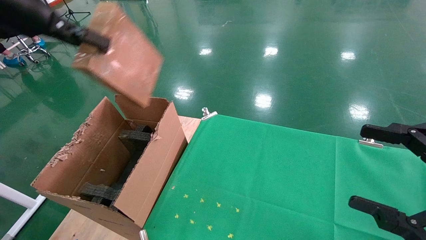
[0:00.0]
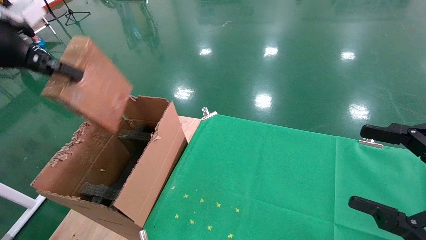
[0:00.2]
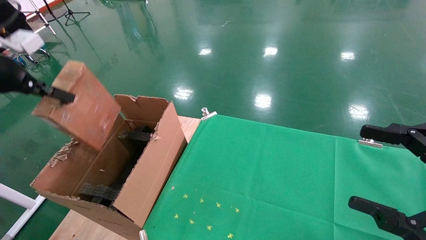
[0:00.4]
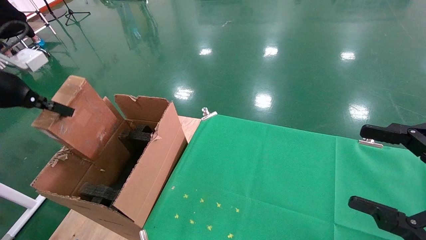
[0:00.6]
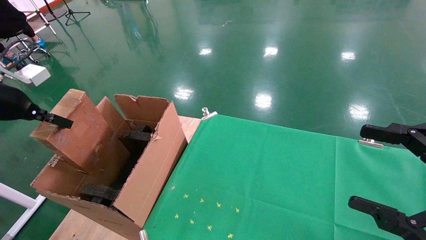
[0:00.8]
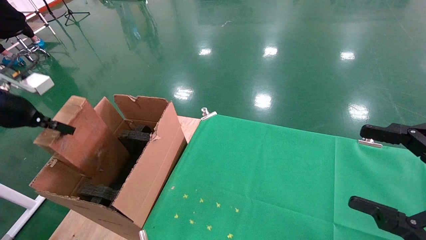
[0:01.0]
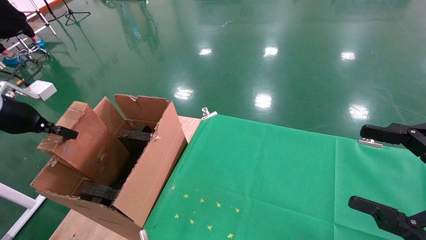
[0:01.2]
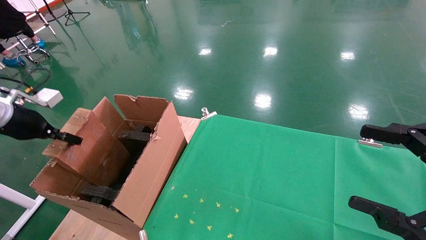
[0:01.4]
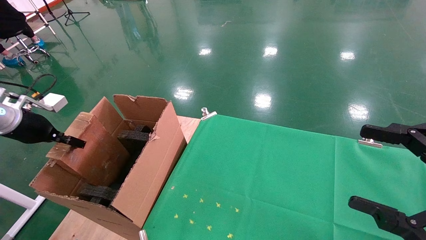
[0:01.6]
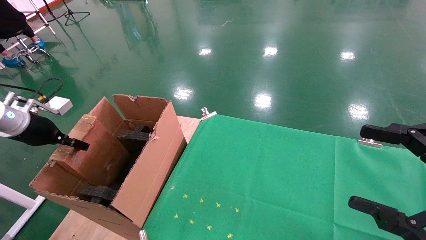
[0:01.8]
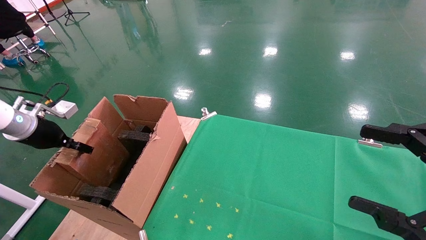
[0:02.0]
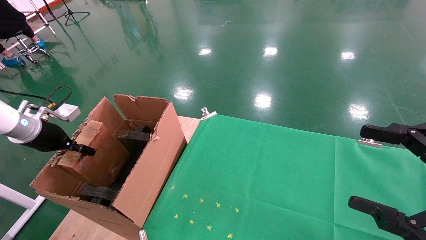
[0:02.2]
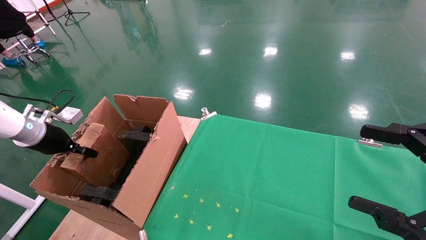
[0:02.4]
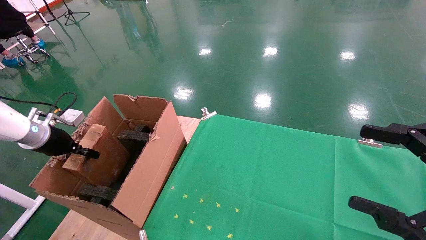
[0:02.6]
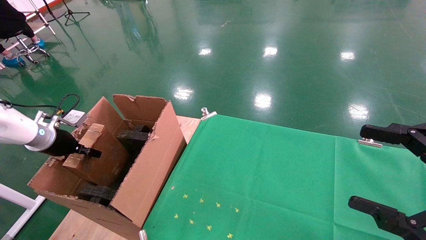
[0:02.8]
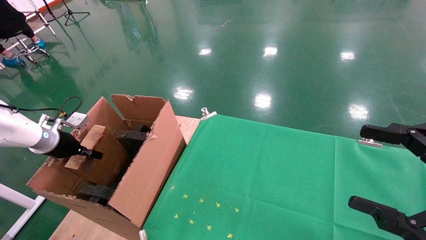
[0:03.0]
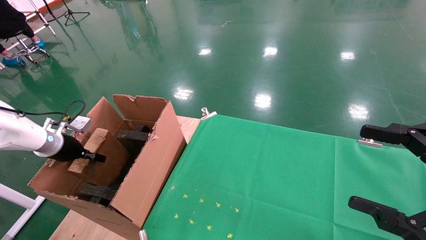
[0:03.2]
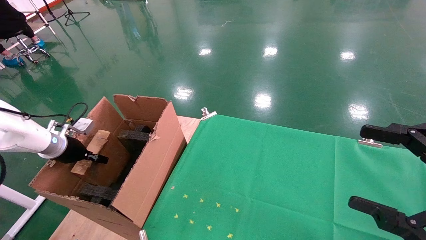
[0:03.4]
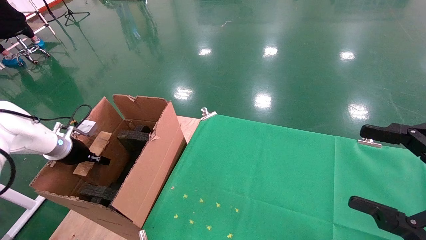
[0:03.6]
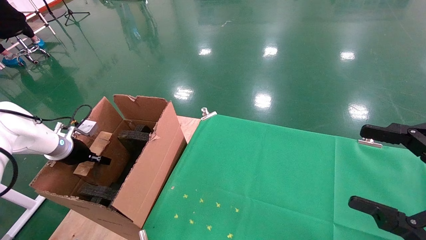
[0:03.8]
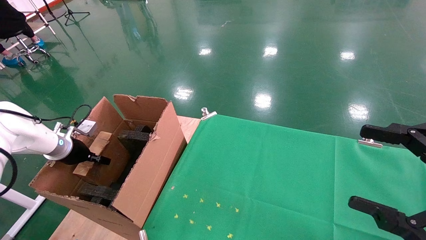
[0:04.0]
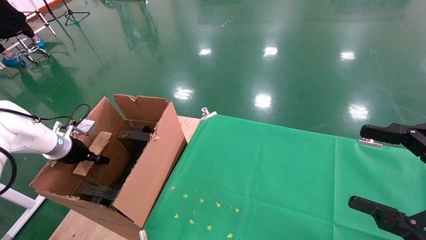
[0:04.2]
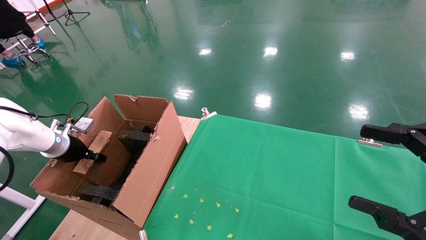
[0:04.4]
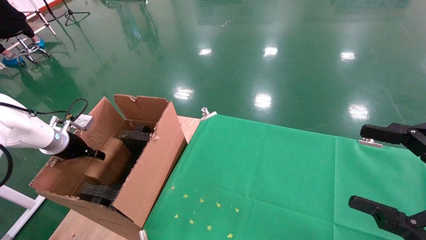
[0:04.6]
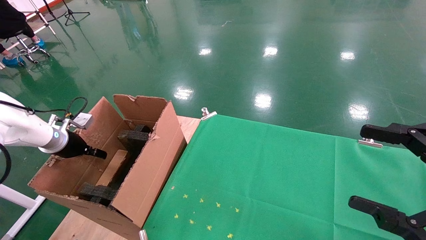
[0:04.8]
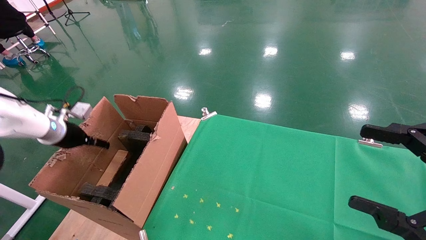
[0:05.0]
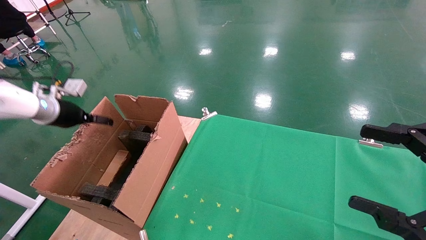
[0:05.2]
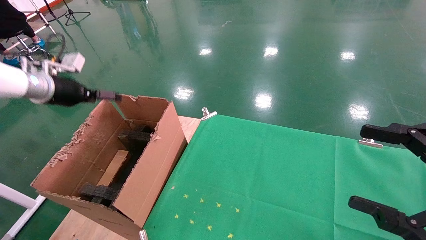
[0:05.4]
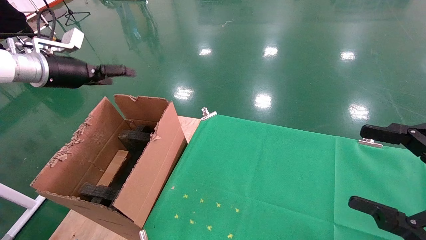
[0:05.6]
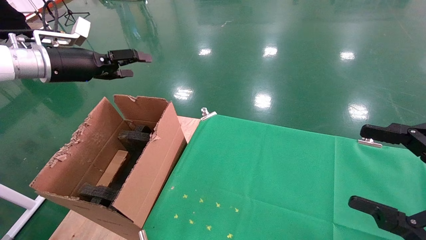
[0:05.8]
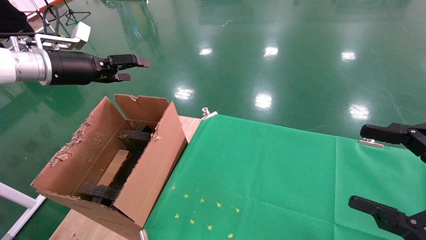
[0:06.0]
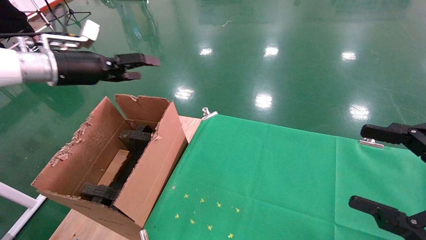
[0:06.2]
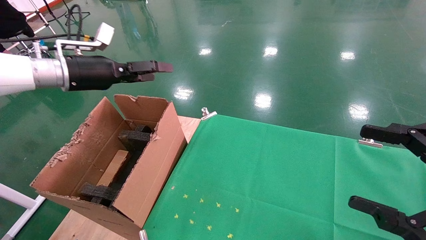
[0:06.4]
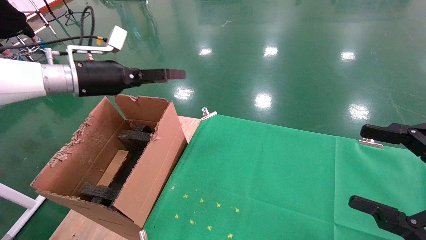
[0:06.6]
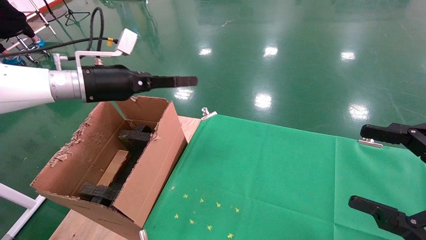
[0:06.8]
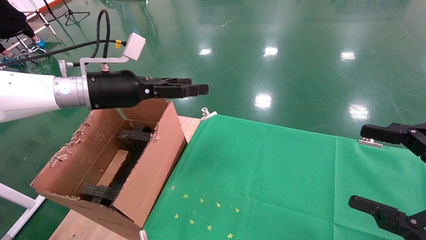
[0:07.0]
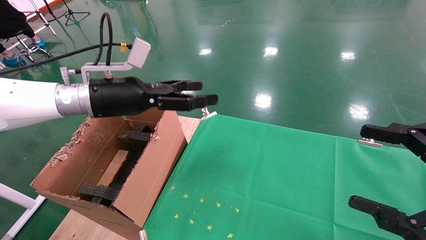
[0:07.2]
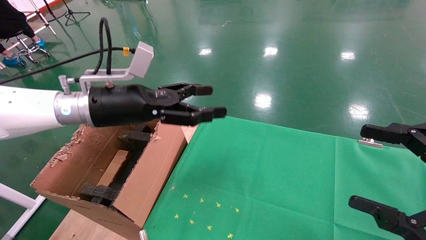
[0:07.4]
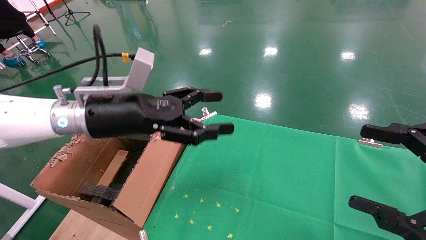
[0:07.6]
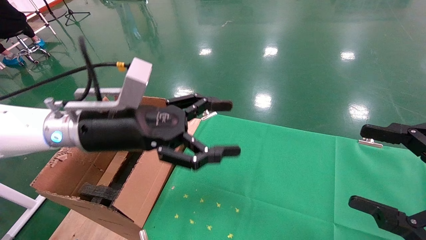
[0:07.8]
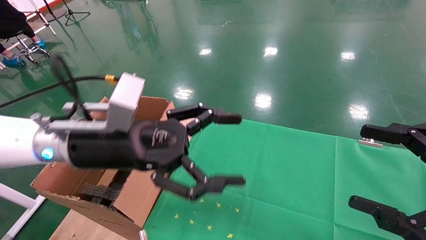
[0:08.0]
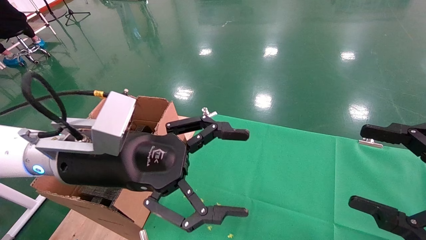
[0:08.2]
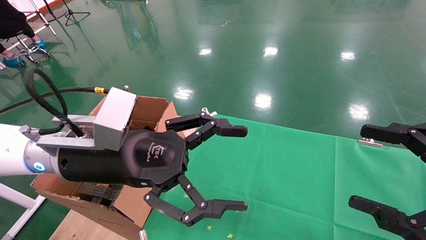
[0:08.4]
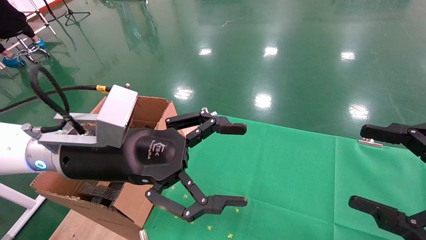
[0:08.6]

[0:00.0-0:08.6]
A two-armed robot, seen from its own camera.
Task of the whole recording: using a robotic arm to pick up a cardboard box and palace it the carton.
Step, 0:00.0 to 0:05.4: Place the mouse and the power cord paper box into the container.
0:00.0 to 0:01.4: The left gripper travels downward and to the left by roughly 25 cm.
0:01.4 to 0:02.8: The left gripper shifts roughly 10 cm downward and forward.
0:02.8 to 0:04.4: There are only small adjustments of the grippers.
0:04.4 to 0:05.8: The left gripper shifts some 20 cm upward, and opens up.
0:05.8 to 0:07.2: The left gripper travels to the right by about 15 cm.
0:07.2 to 0:08.6: The left gripper shifts some 15 cm backward and to the right.
